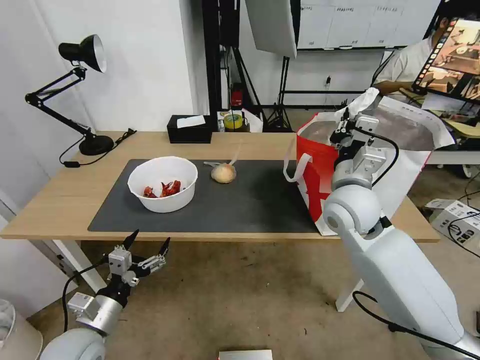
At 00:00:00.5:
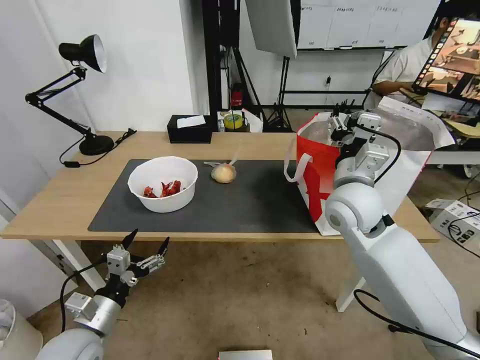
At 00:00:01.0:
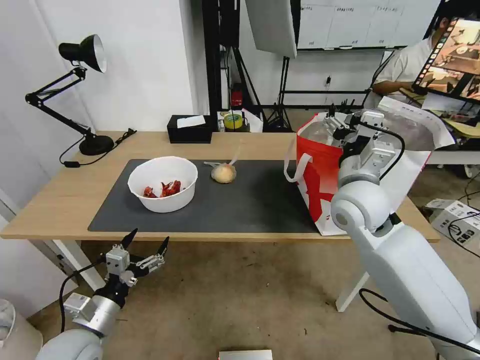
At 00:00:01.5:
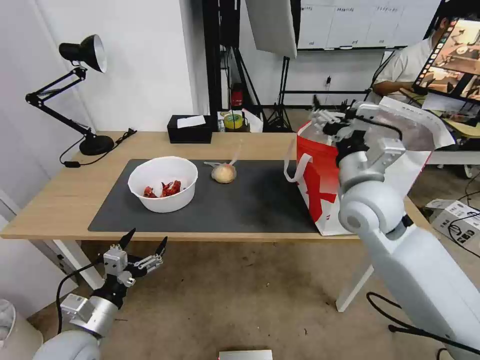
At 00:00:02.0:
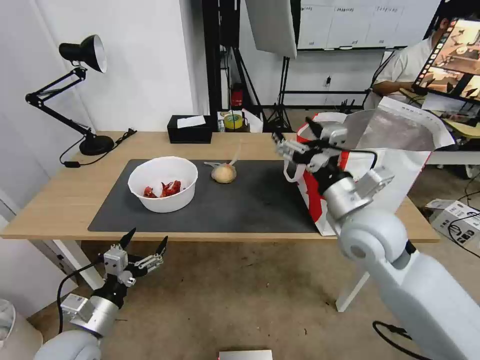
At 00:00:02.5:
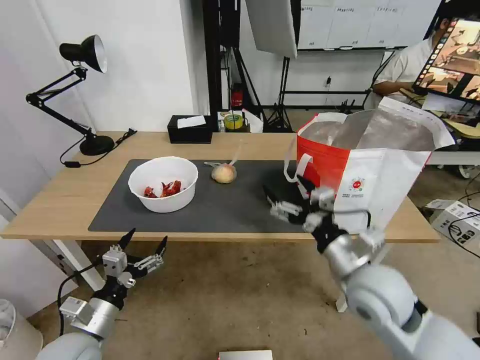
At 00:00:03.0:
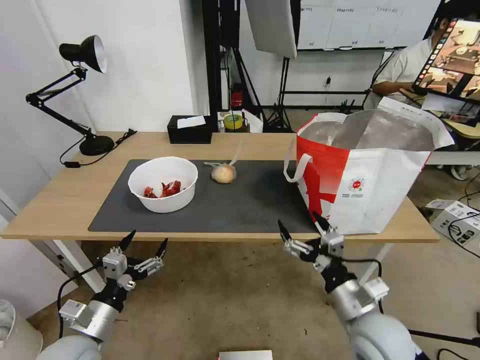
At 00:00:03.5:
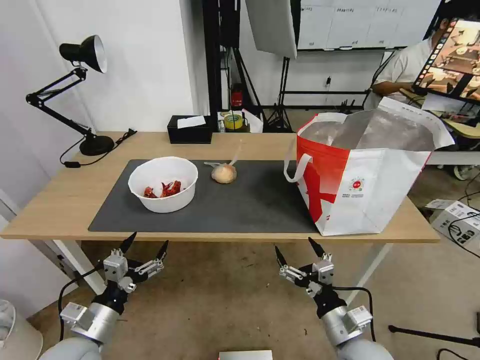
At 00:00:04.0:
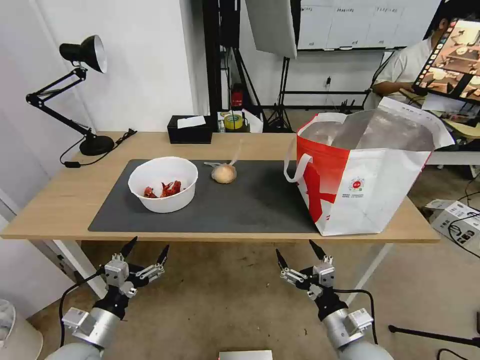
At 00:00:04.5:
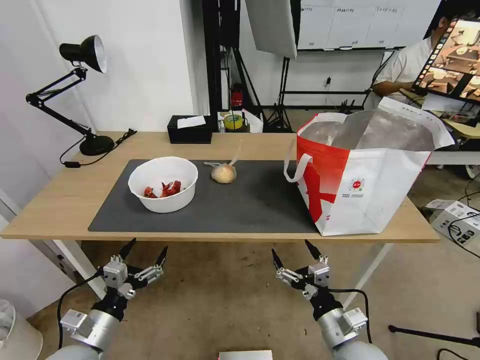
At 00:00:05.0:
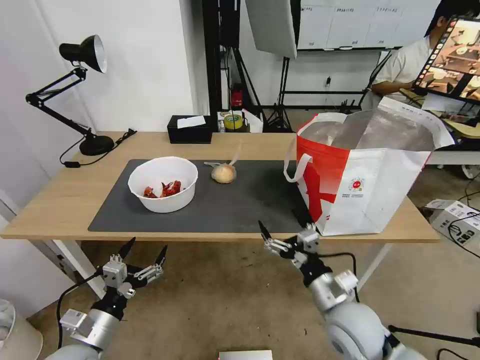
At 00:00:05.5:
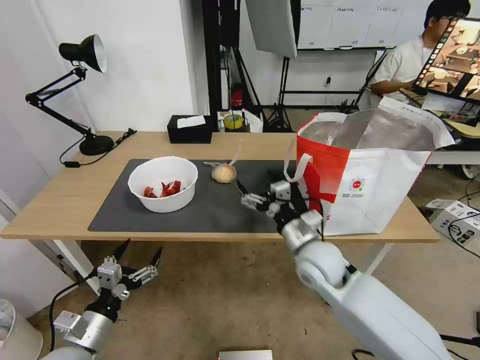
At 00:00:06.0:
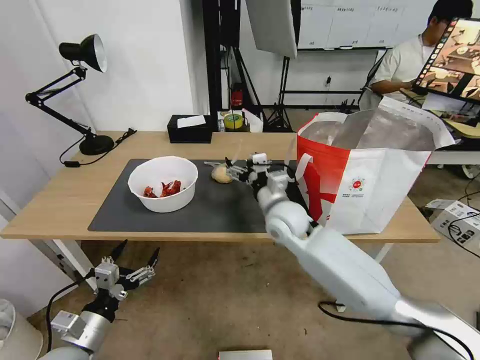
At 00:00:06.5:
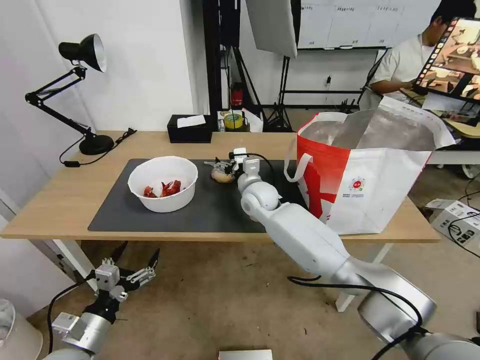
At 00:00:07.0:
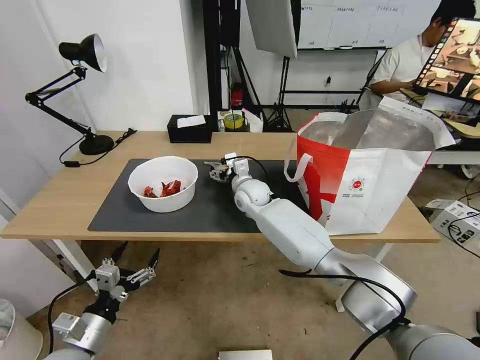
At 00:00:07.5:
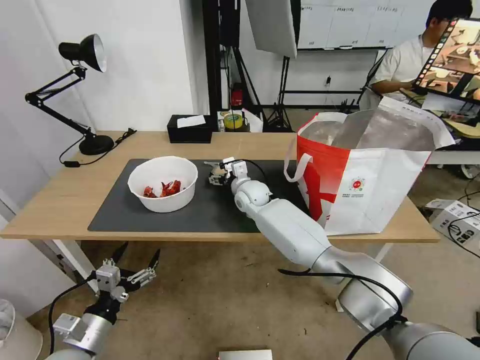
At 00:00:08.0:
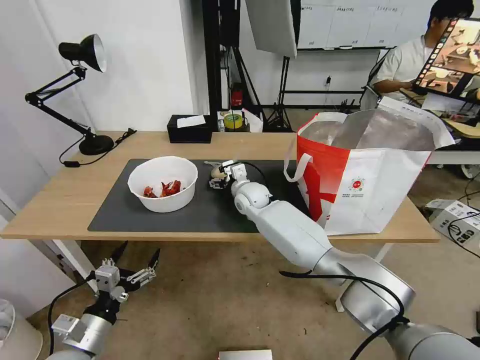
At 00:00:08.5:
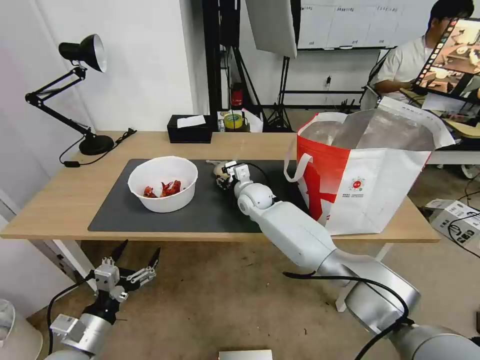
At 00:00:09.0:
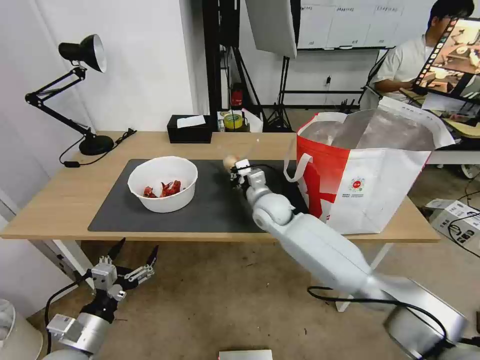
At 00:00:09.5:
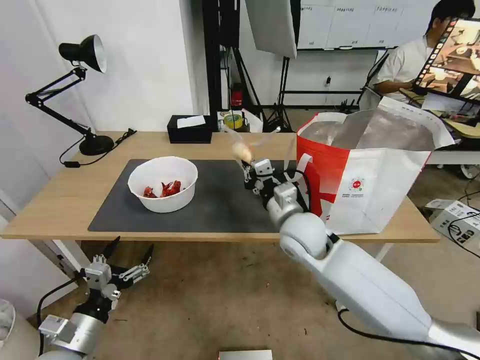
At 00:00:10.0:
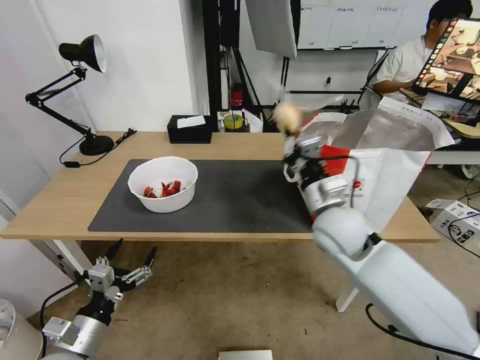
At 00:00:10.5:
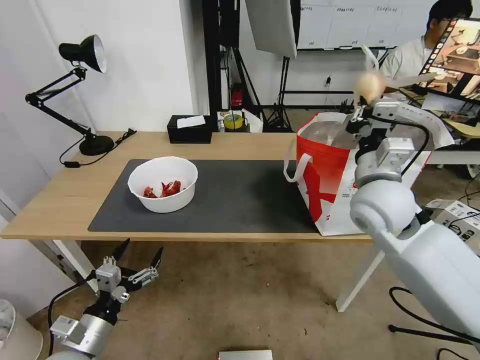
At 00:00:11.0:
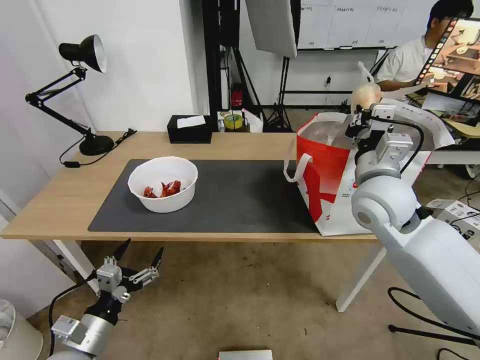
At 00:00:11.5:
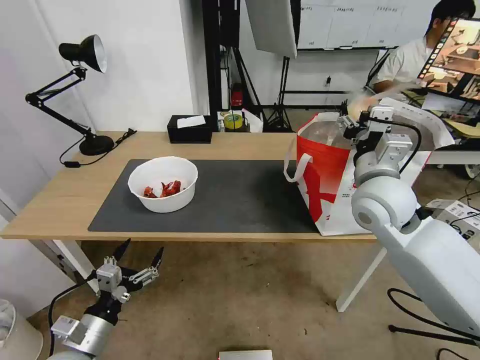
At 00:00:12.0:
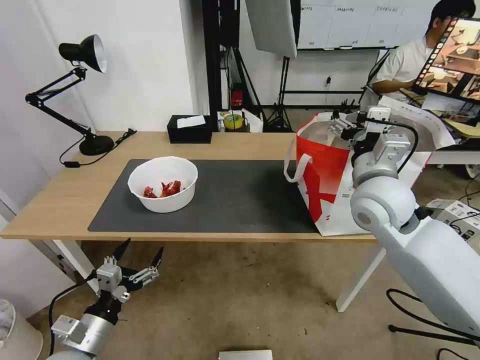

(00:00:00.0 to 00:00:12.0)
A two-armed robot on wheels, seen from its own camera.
Task of the whole recording: Pick up the trash from the table and place it into the takeout bag.
00:00:00.0 - 00:00:02.0: The right gripper moves backward, roughly 5 cm, and opens its fingers.
00:00:02.0 - 00:00:04.0: The right gripper heads downward and backward, covering about 25 cm.
00:00:04.0 - 00:00:06.0: The right gripper moves forward, to the left and upward, some 35 cm.
00:00:06.0 - 00:00:08.0: The right gripper goes some 15 cm forward, to the left and downward.
00:00:08.0 - 00:00:10.0: The right gripper heads backward, to the right and upward, covering roughly 25 cm, and closes its fingers.
00:00:10.0 - 00:00:12.0: The right gripper goes about 10 cm upward and to the right, and opens up.

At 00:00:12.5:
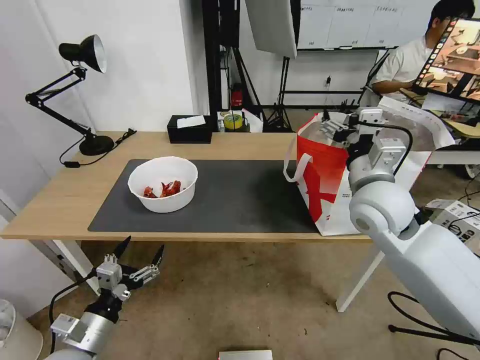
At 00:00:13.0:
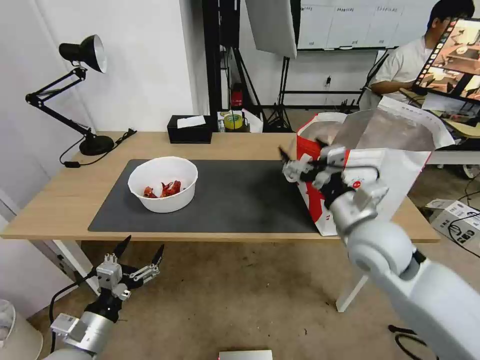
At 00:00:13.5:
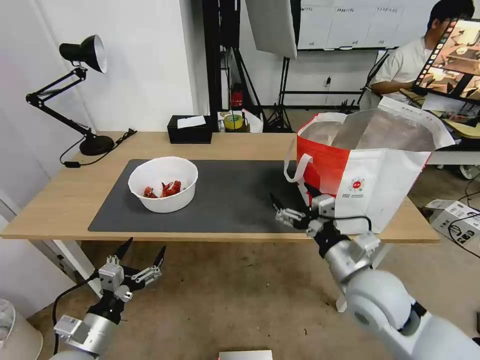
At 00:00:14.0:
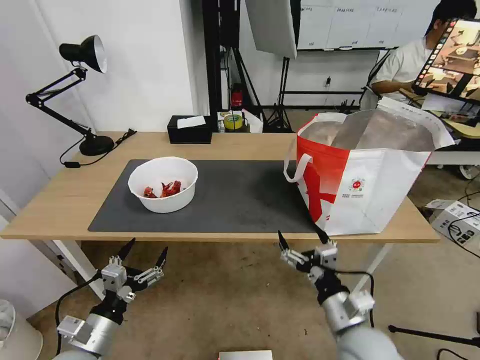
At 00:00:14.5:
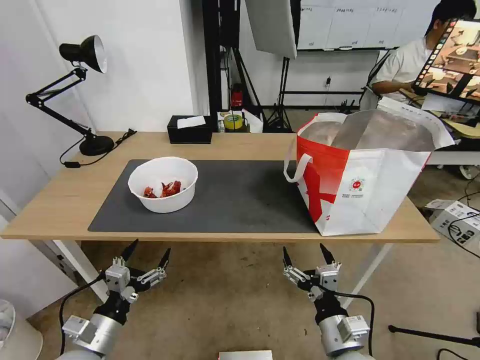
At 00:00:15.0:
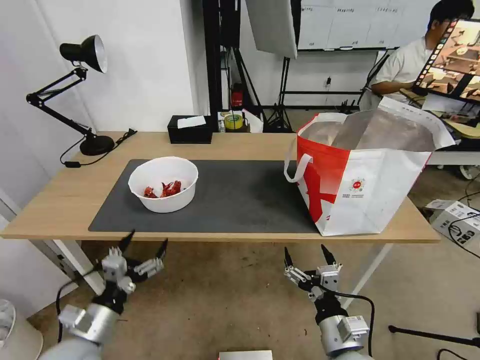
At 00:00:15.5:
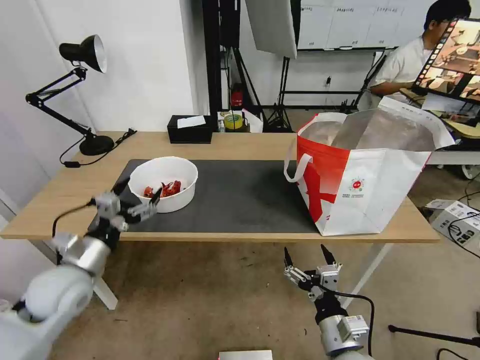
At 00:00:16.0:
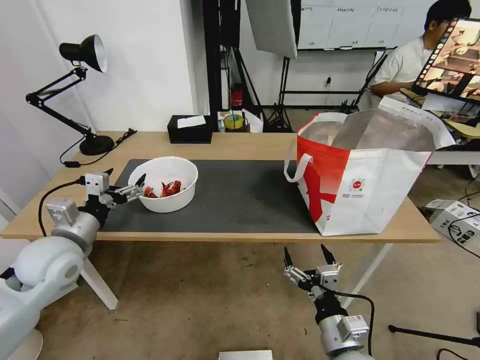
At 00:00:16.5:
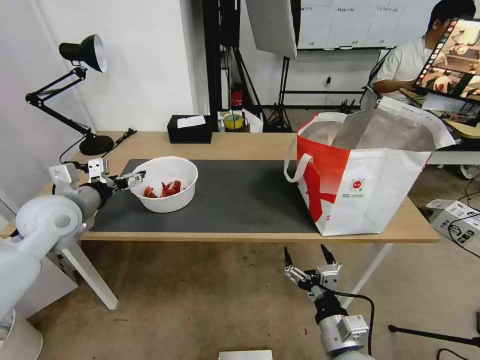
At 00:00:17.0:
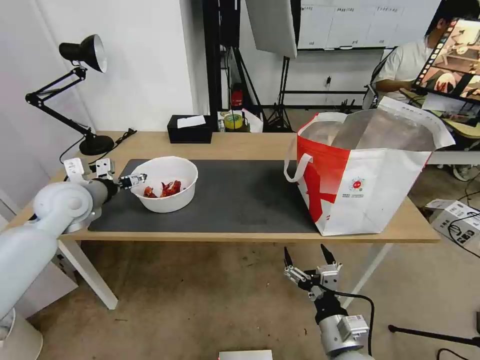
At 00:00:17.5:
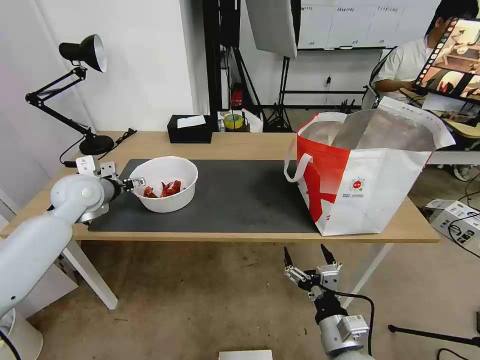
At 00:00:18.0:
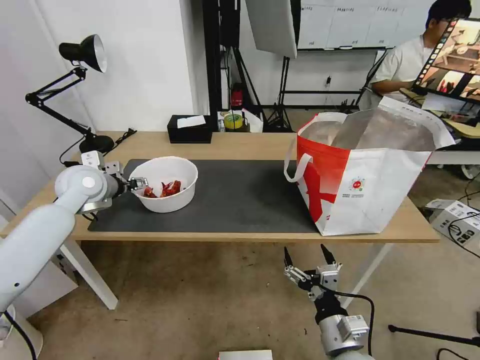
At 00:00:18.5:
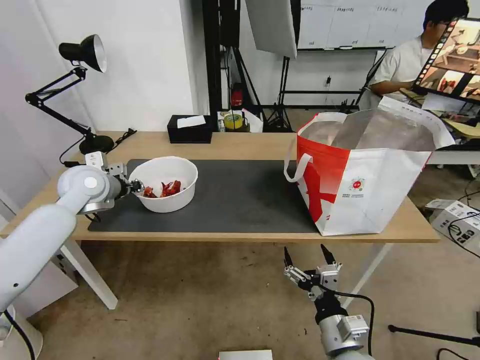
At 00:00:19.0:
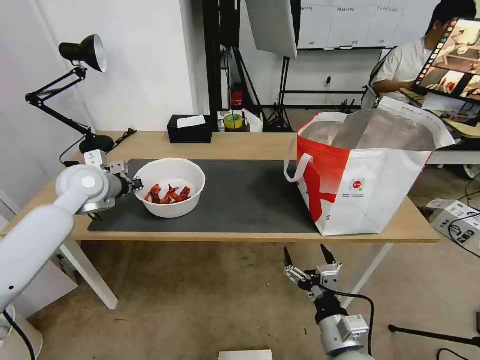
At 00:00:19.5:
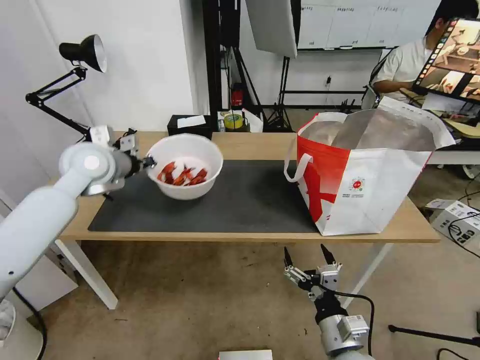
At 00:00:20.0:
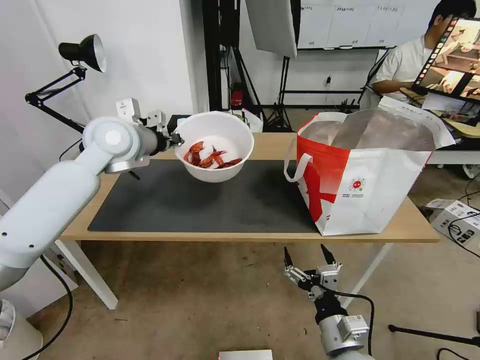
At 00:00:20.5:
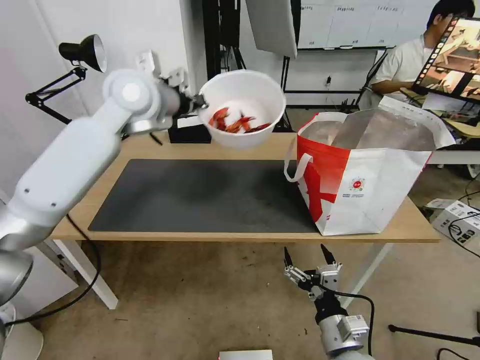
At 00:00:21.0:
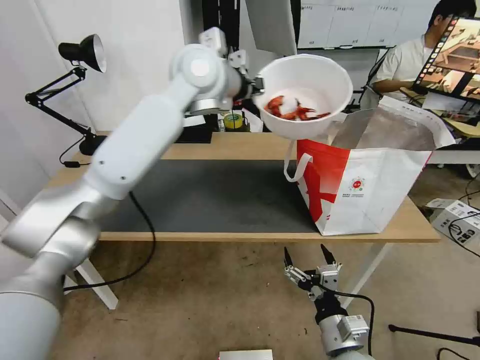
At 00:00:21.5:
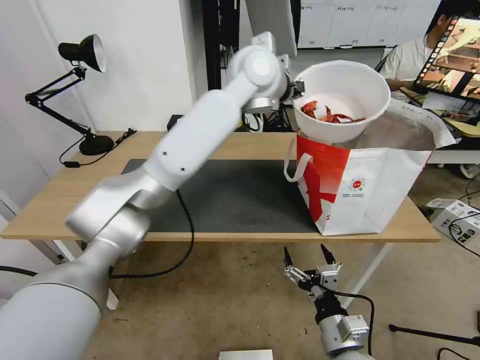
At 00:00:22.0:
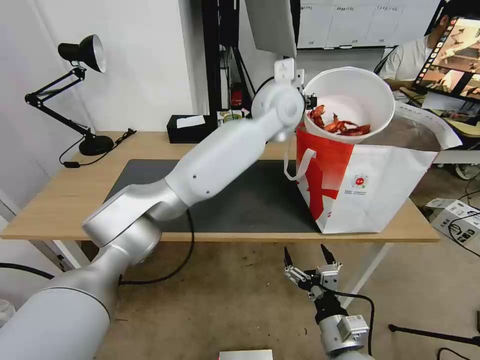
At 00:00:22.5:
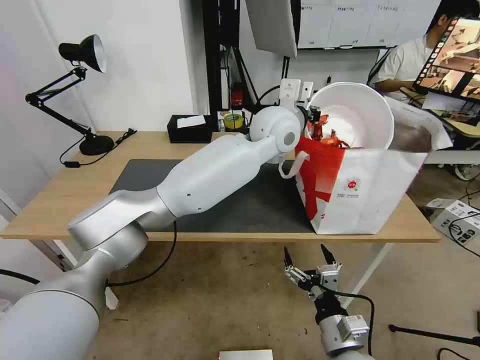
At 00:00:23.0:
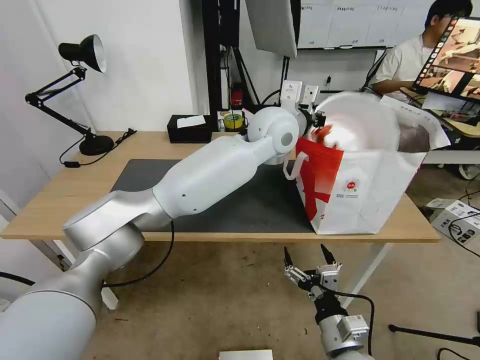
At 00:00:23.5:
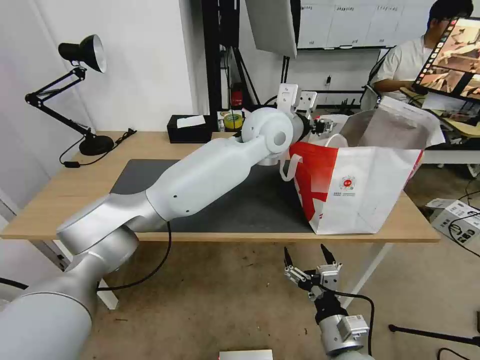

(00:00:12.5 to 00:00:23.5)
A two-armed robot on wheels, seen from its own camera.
Task of the whole recording: Pick up the trash from the table and place it into the takeout bag.
00:00:12.5 - 00:00:14.5: The right gripper moves backward and downward, some 30 cm.
00:00:14.5 - 00:00:16.0: The left gripper moves forward and upward, about 20 cm.
00:00:16.0 - 00:00:18.0: The left gripper goes approximately 15 cm forward.
00:00:18.0 - 00:00:20.0: The left gripper is displaced upward and to the right by approximately 15 cm, and closes its fingers.
00:00:20.0 - 00:00:21.5: The left gripper heads to the right, covering approximately 25 cm.
00:00:21.5 - 00:00:23.5: The left gripper shifts roughly 10 cm downward, and opens up.

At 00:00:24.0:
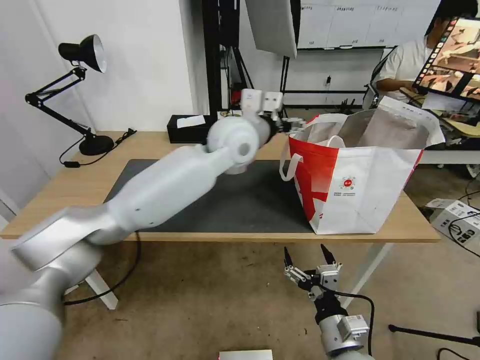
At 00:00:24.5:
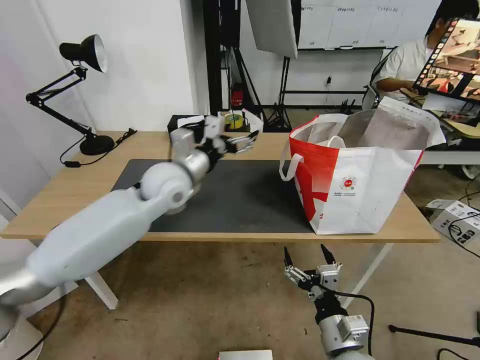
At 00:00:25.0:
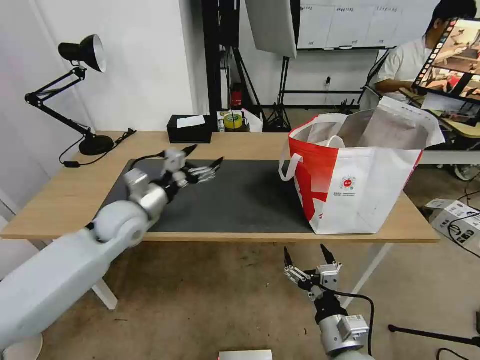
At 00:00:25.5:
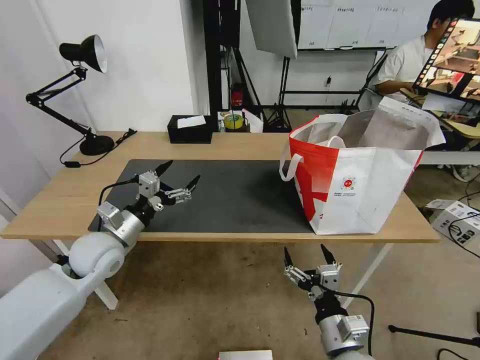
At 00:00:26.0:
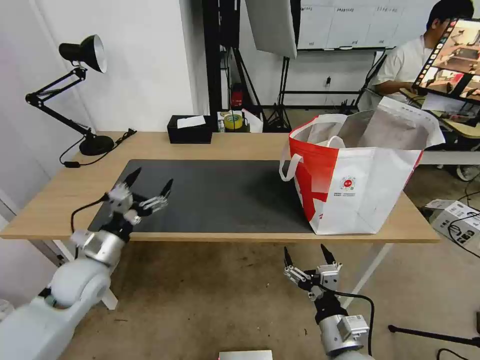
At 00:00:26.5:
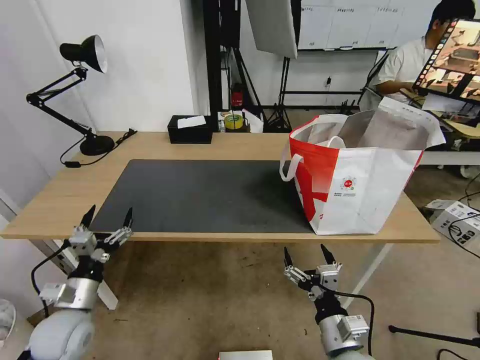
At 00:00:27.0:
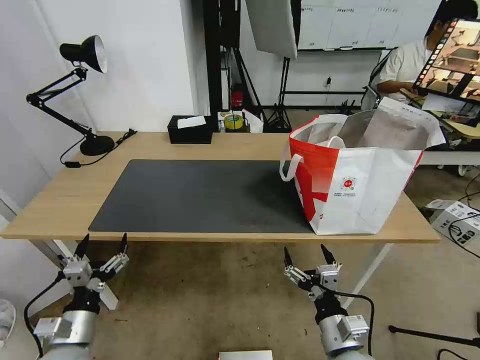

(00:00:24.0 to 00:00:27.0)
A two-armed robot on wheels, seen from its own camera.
Task of the whole recording: Pick up the trash from the table and place it into the takeout bag.
00:00:24.0 - 00:00:25.5: The left gripper goes about 35 cm to the left, downward and backward.
00:00:25.5 - 00:00:27.0: The left gripper goes some 20 cm backward and downward.
